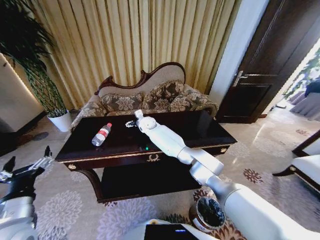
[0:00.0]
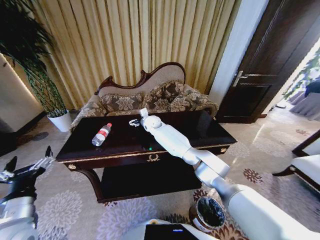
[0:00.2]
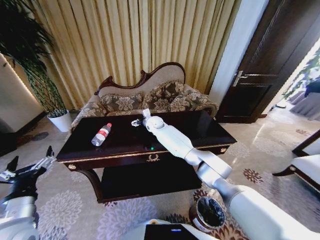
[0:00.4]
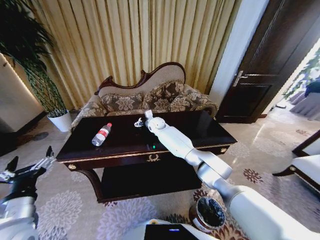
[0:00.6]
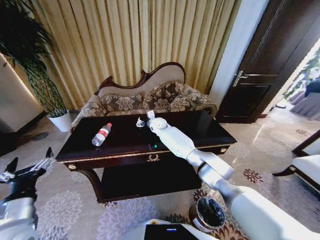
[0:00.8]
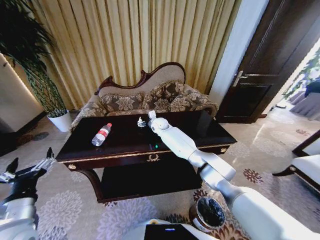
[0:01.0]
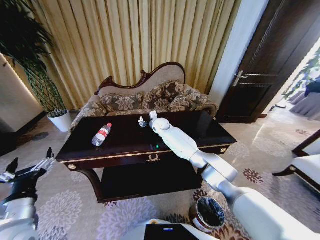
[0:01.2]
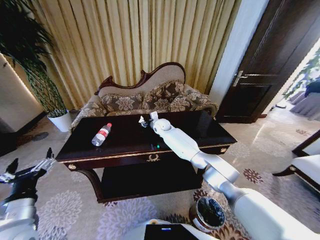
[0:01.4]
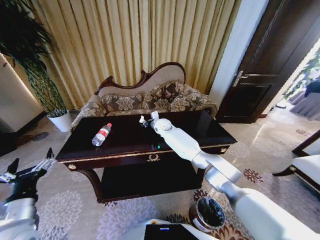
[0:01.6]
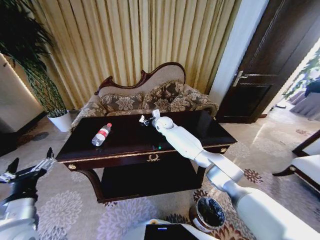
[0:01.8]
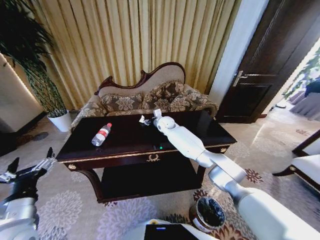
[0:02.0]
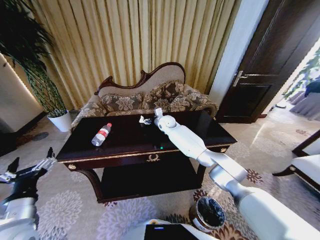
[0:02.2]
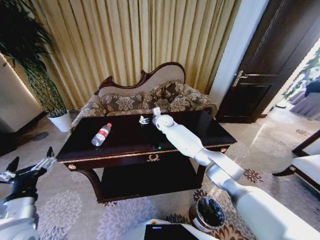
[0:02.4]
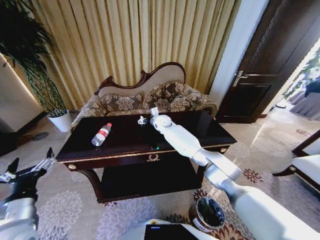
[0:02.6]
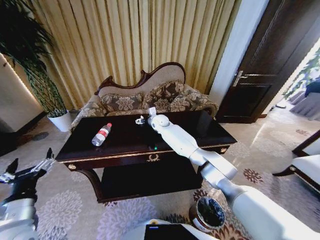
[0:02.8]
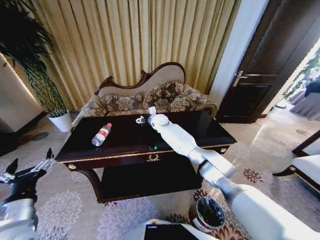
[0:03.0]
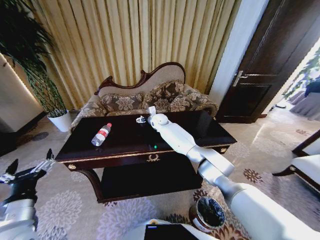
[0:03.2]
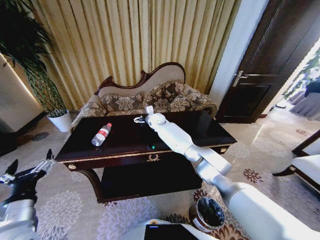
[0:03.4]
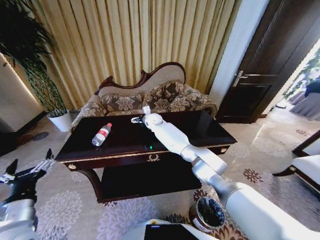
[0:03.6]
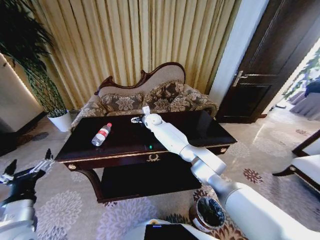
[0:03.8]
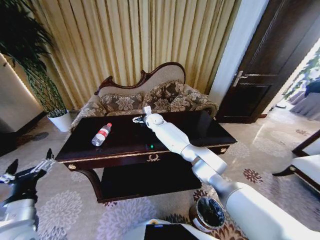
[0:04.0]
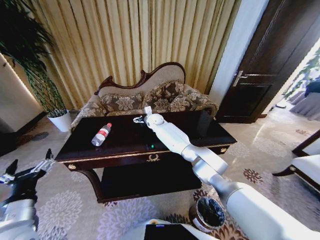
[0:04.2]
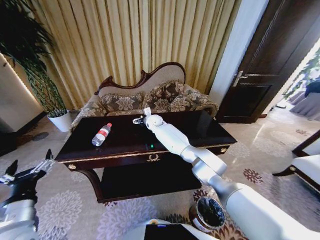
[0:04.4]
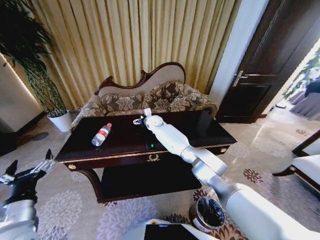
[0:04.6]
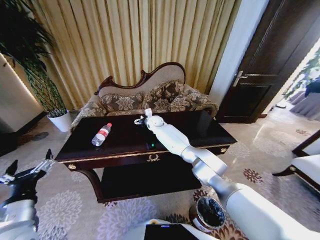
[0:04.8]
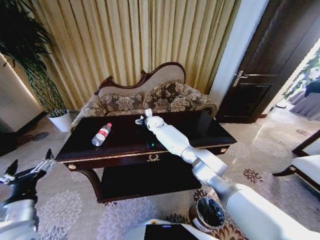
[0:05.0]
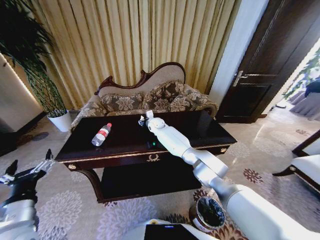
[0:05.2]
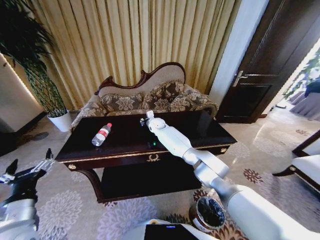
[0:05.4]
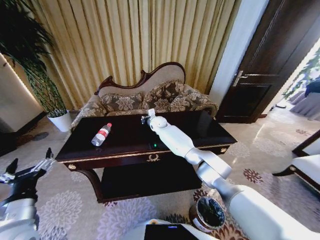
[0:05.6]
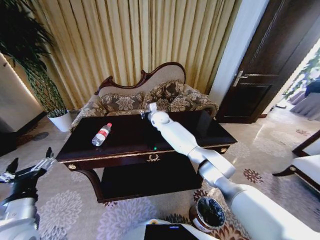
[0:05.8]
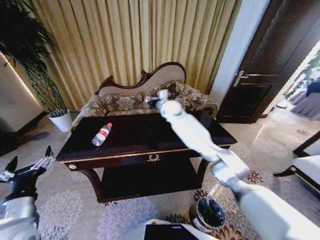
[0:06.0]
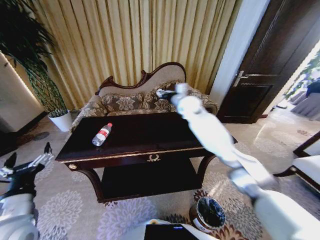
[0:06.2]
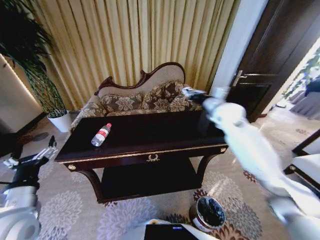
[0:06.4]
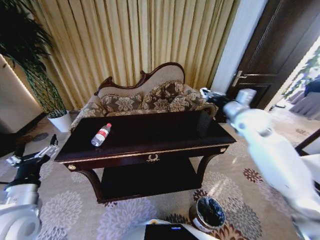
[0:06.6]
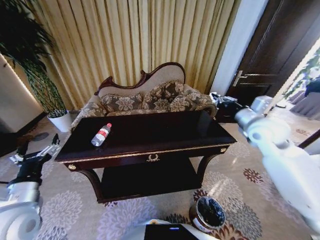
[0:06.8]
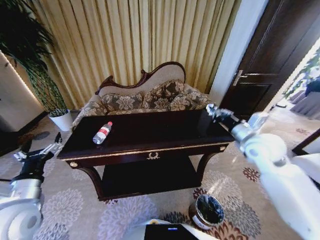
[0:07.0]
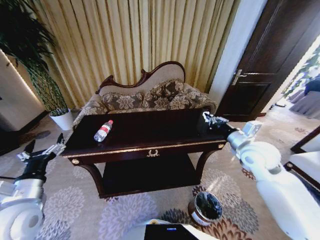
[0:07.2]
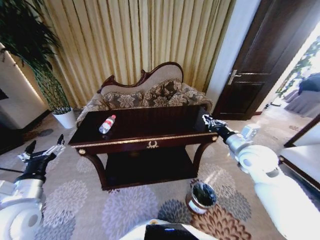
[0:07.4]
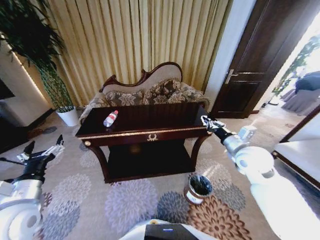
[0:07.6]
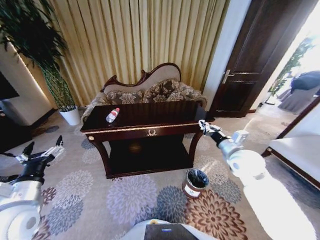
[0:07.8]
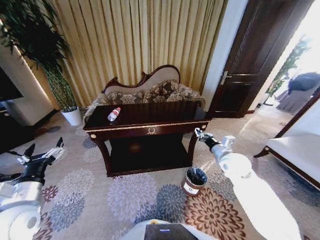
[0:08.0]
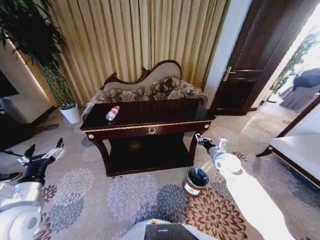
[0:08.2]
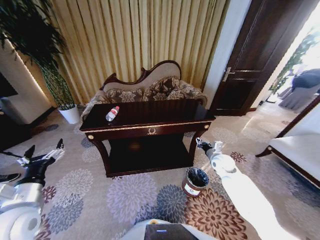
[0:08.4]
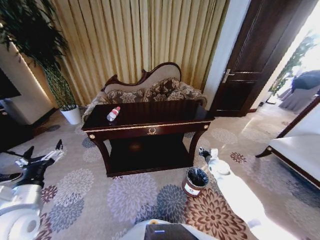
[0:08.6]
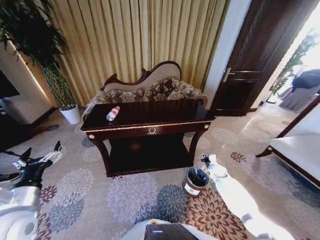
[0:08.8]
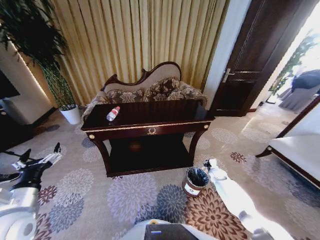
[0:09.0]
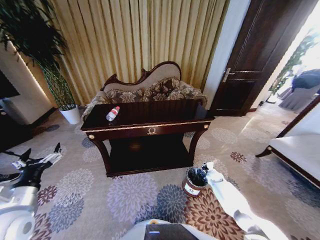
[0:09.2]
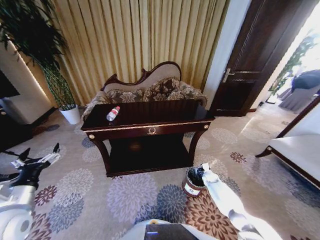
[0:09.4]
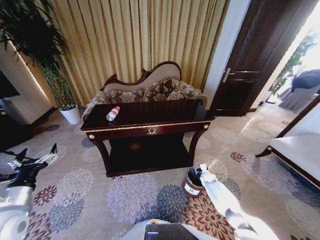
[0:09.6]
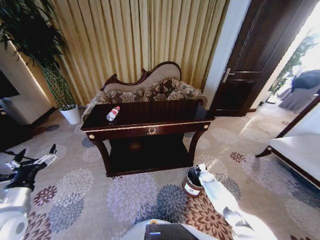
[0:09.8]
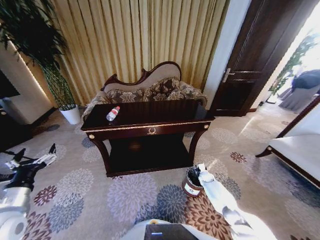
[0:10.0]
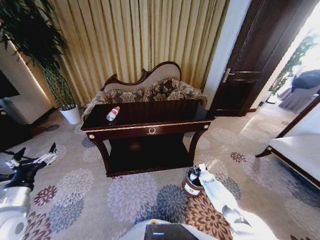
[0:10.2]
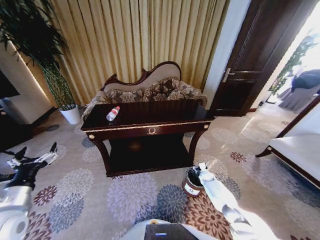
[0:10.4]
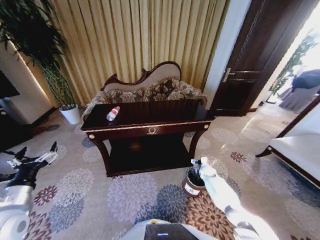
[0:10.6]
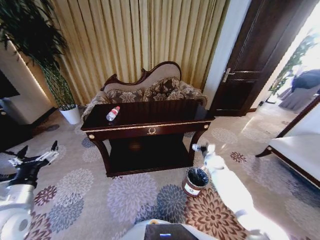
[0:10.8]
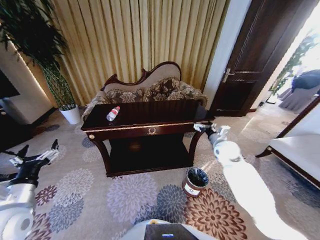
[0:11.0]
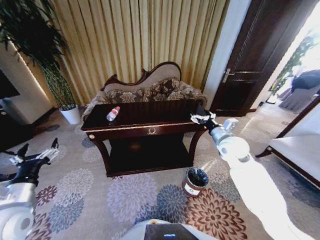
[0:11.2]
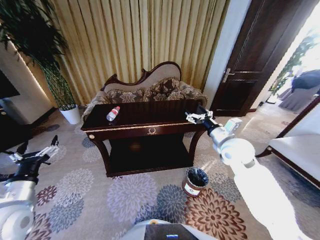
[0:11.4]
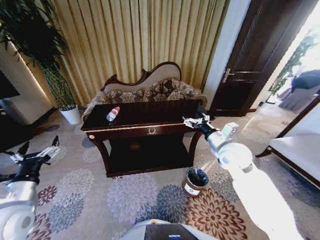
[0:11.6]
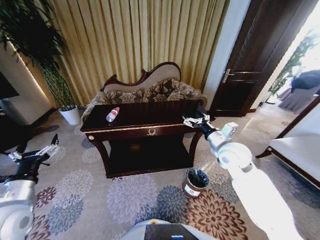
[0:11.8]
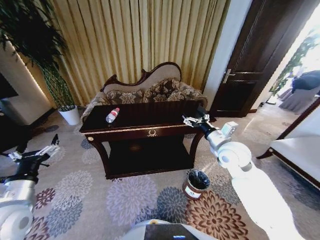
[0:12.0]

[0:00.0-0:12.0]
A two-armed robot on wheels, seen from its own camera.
Task of the whole recording: Move to the front of the table and place the trash on the table into the trash bin.
0:00.0 to 0:01.6: The right gripper is displaced to the right by approximately 10 cm, and closes its fingers.
0:01.6 to 0:03.0: The right gripper opens.
0:03.0 to 0:04.4: There are only small adjustments of the grippers.
0:04.4 to 0:06.0: The right gripper heads upward and to the right, covering about 15 cm, and closes its fingers.
0:06.0 to 0:07.6: The right gripper goes about 40 cm backward and to the right; the left gripper changes place by some 5 cm.
0:07.6 to 0:09.0: The right gripper shifts about 35 cm downward.
0:09.0 to 0:10.4: The right gripper changes place by roughly 5 cm, and opens its fingers.
0:10.4 to 0:12.0: The right gripper moves upward, roughly 40 cm.

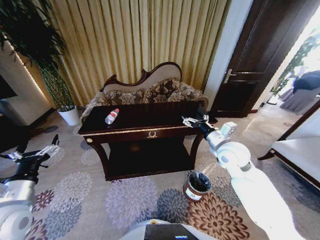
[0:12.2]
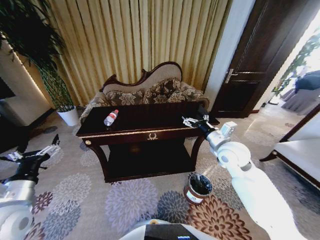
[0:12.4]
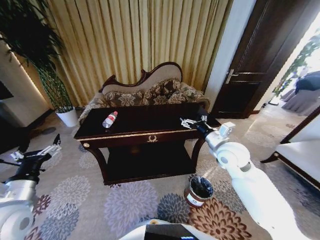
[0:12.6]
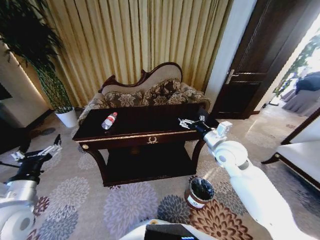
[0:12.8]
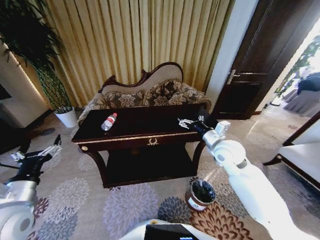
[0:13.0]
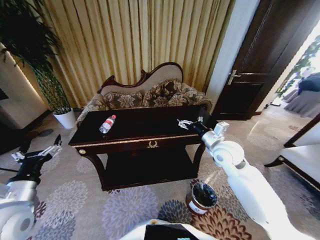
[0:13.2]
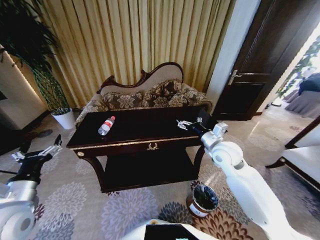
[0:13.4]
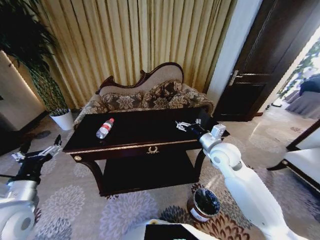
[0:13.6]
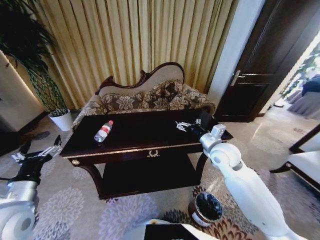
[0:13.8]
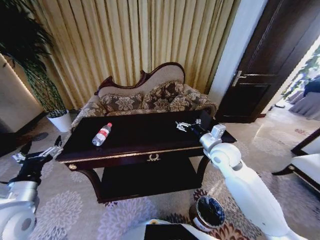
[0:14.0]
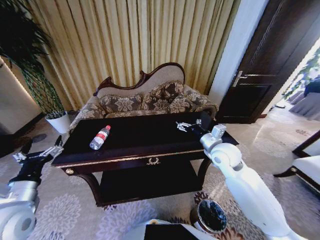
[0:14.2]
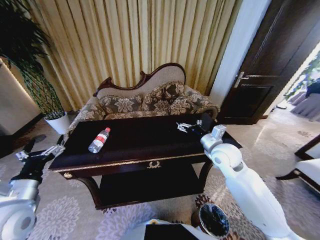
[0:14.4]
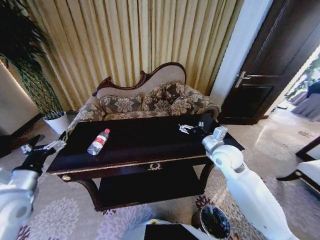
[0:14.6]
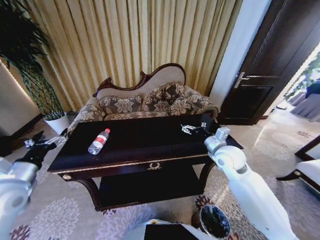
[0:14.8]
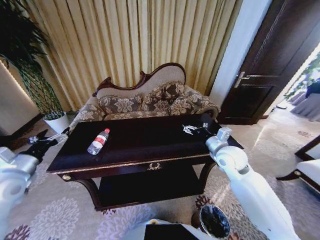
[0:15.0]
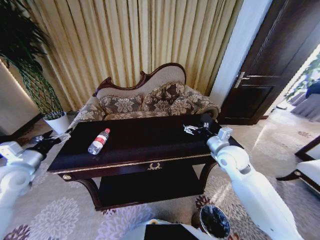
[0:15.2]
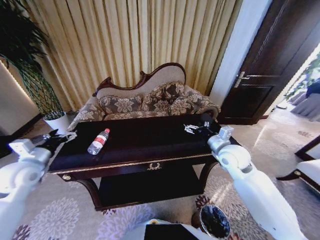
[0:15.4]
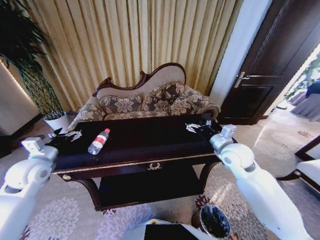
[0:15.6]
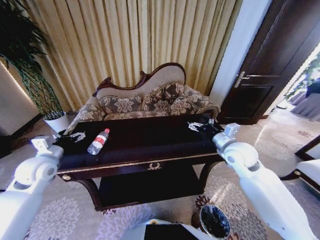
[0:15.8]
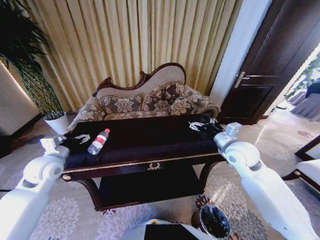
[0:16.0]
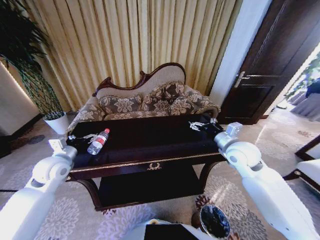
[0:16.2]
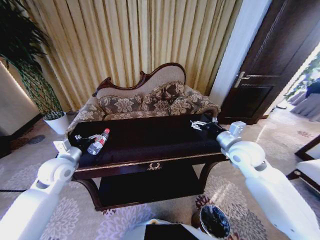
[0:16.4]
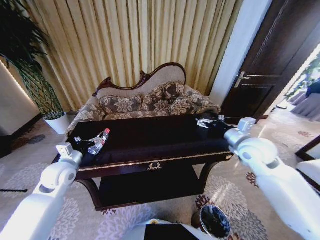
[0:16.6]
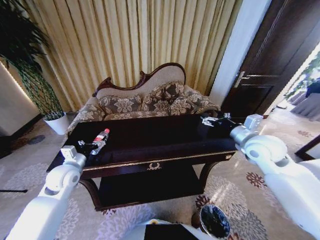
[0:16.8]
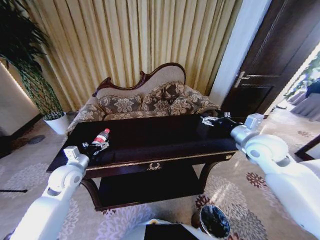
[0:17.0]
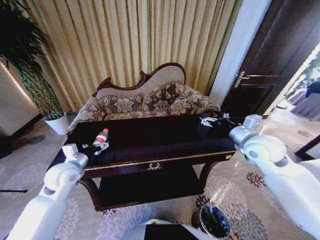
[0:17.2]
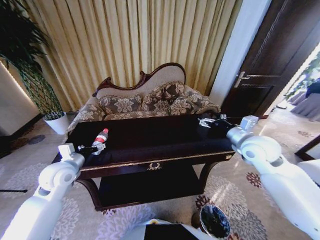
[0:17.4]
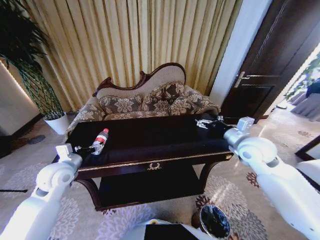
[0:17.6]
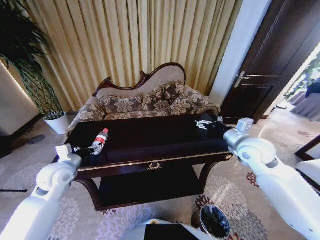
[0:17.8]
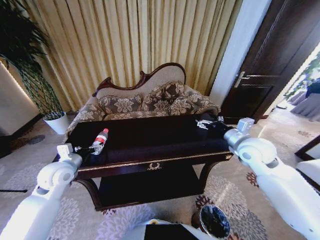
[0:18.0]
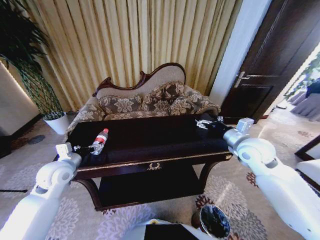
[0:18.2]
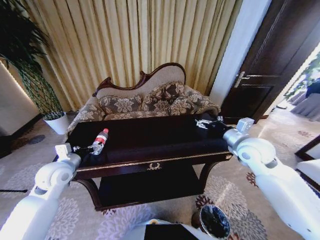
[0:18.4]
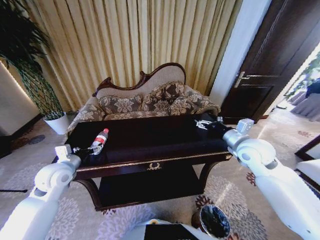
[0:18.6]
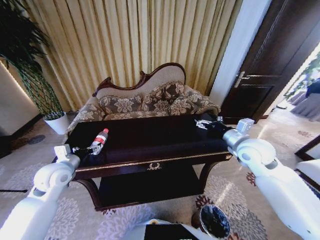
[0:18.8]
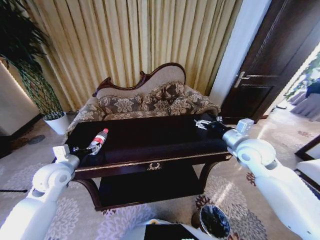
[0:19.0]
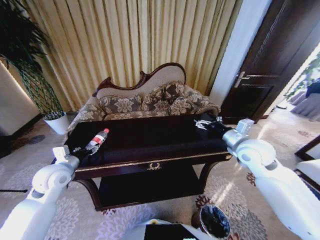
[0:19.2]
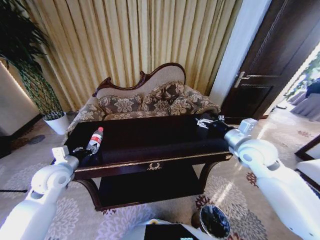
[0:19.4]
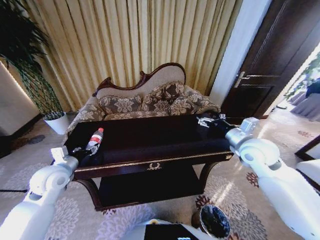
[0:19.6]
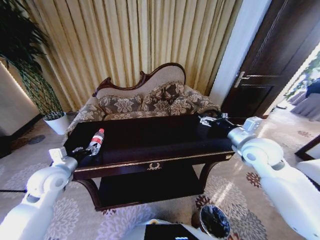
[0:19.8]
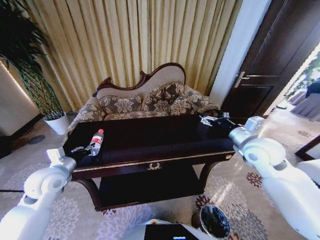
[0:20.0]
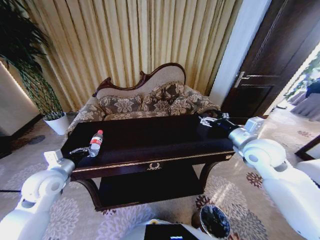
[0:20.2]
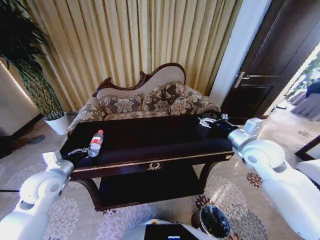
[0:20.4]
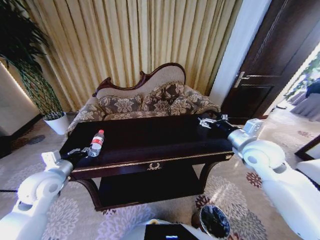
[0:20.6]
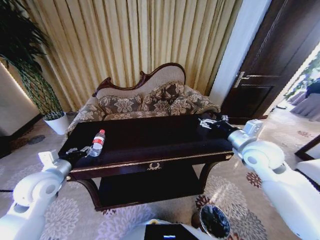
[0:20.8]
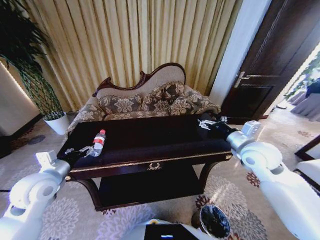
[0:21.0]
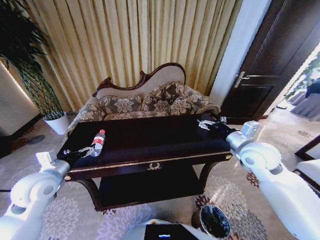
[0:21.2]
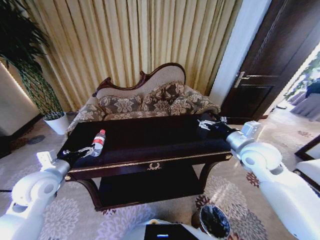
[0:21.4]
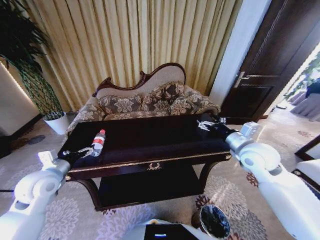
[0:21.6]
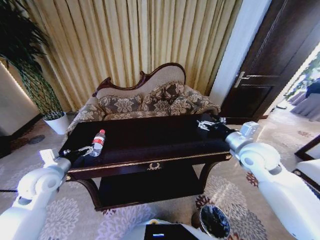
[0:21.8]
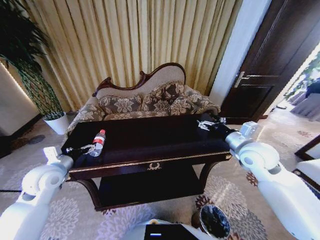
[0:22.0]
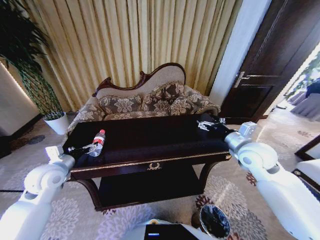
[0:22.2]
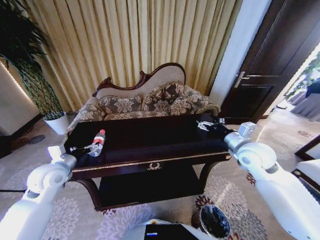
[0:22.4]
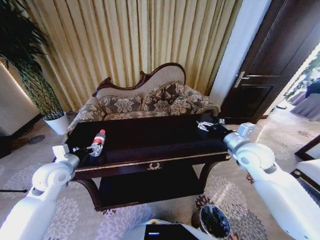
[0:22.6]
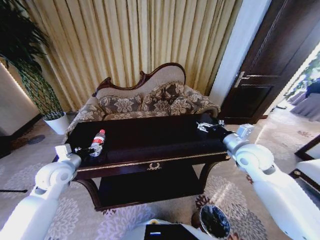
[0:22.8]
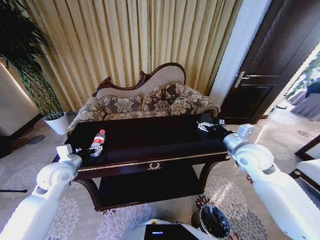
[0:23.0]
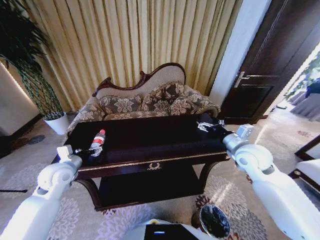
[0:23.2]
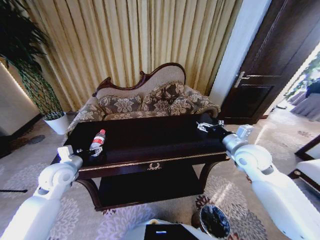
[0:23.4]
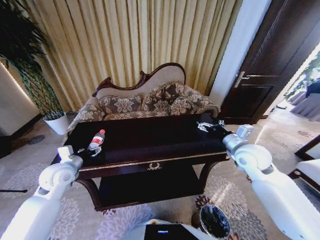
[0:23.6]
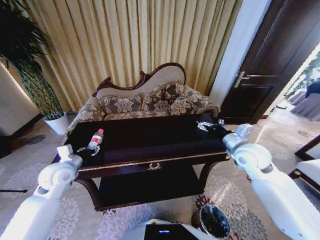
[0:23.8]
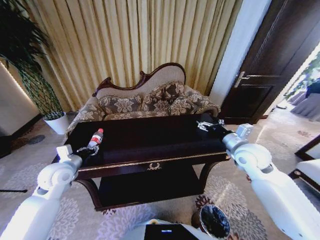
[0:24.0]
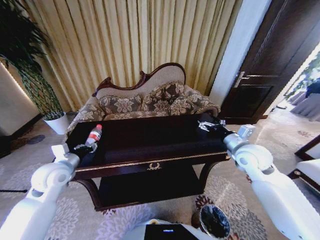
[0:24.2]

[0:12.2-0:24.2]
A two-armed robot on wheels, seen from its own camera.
Task of the whole recording: Move to the front of the table and place the trash on the table into the trash bin.
0:13.8 to 0:15.2: The left gripper travels forward and to the left by approximately 15 cm.
0:15.2 to 0:16.6: The left gripper moves to the right and downward, approximately 10 cm. Meanwhile the right gripper shifts about 5 cm upward and to the right.
0:16.6 to 0:18.2: The grippers make only small movements.
0:18.2 to 0:19.8: The left gripper closes up.
0:19.8 to 0:21.2: The left gripper opens its fingers.
0:21.2 to 0:22.6: The left gripper moves roughly 5 cm.
0:22.6 to 0:24.2: The left gripper closes.
